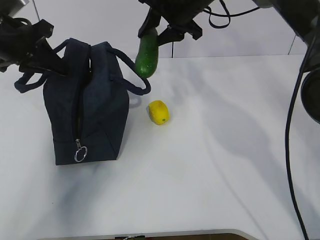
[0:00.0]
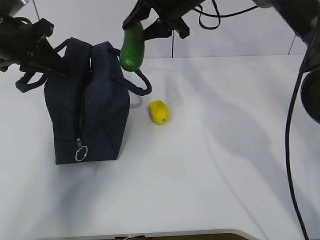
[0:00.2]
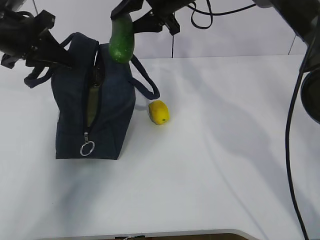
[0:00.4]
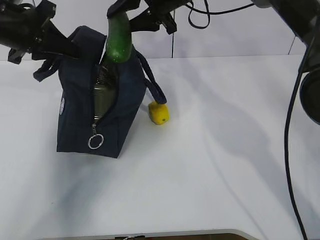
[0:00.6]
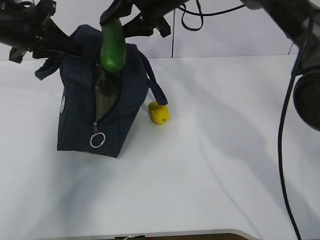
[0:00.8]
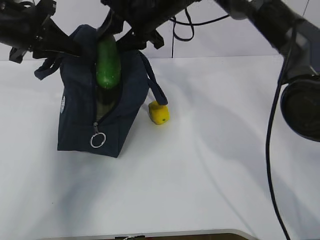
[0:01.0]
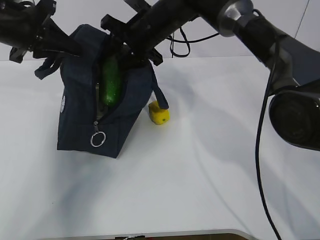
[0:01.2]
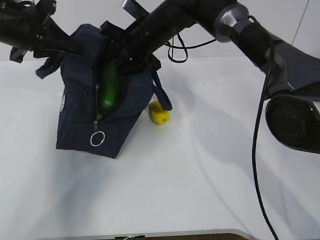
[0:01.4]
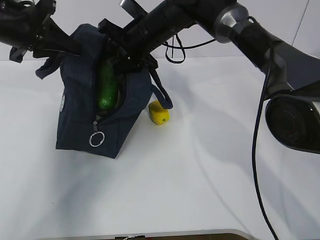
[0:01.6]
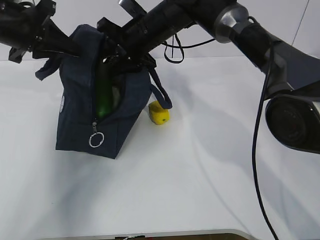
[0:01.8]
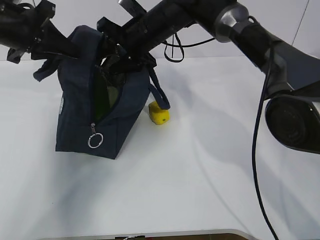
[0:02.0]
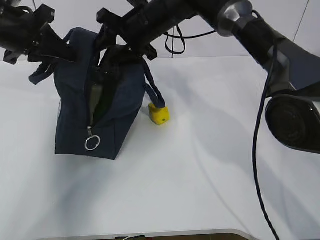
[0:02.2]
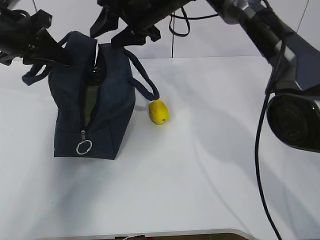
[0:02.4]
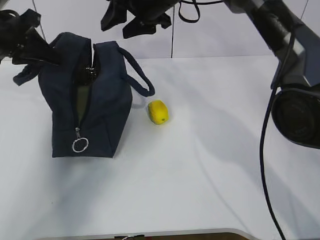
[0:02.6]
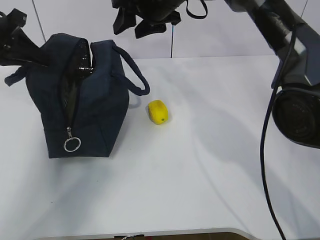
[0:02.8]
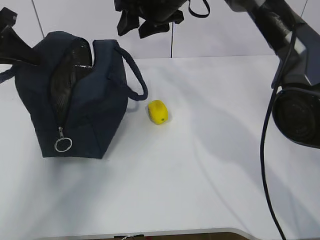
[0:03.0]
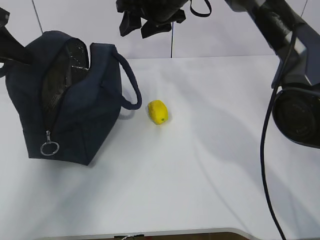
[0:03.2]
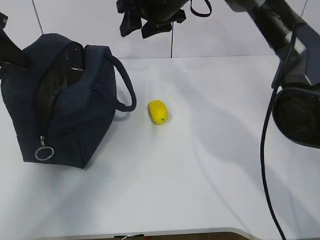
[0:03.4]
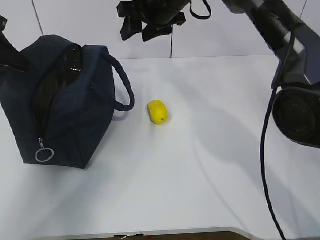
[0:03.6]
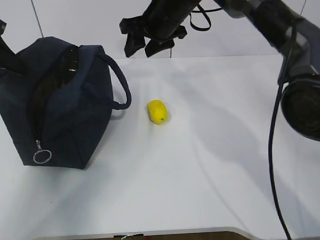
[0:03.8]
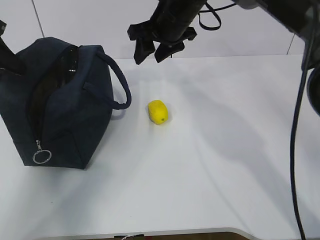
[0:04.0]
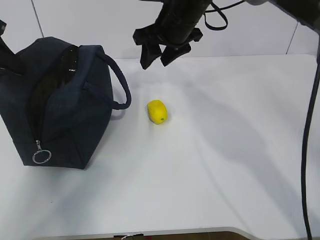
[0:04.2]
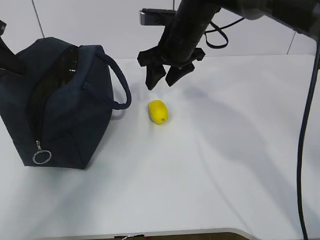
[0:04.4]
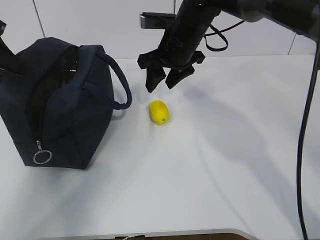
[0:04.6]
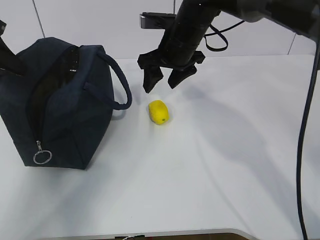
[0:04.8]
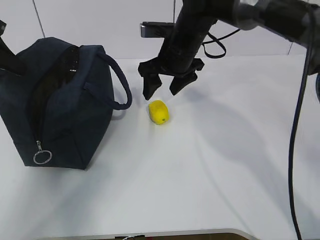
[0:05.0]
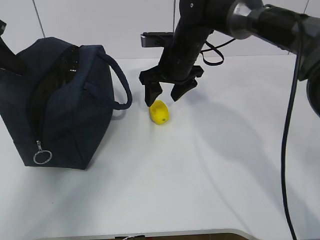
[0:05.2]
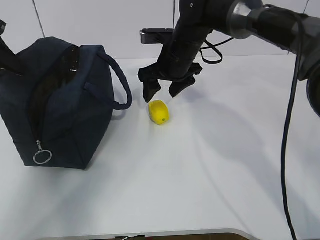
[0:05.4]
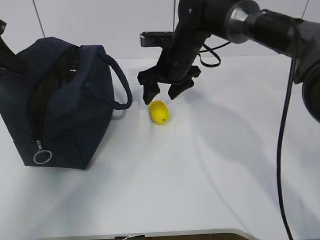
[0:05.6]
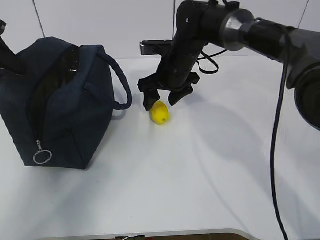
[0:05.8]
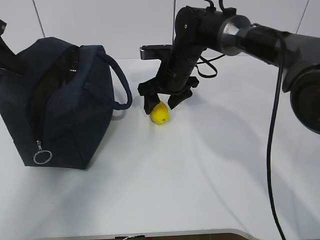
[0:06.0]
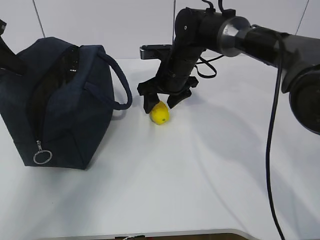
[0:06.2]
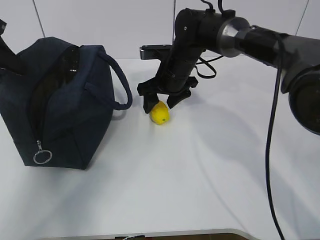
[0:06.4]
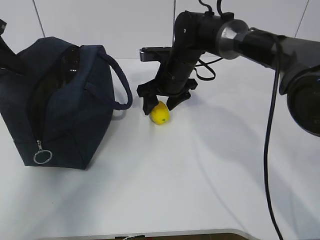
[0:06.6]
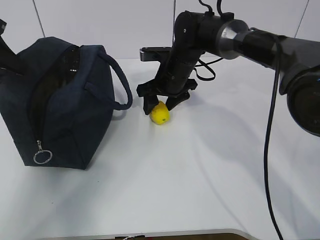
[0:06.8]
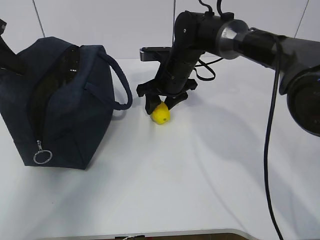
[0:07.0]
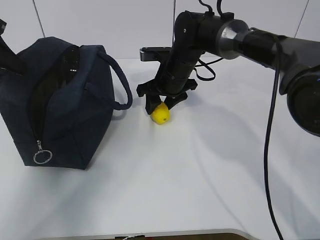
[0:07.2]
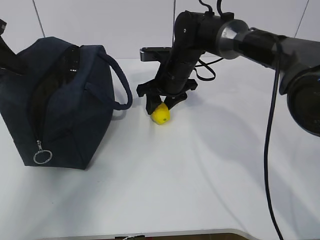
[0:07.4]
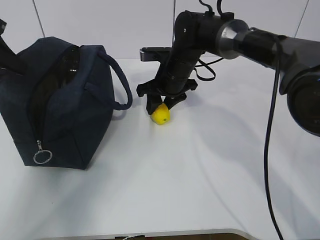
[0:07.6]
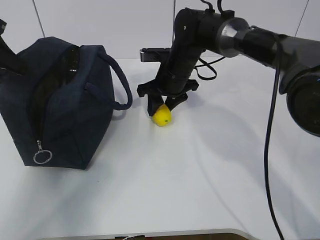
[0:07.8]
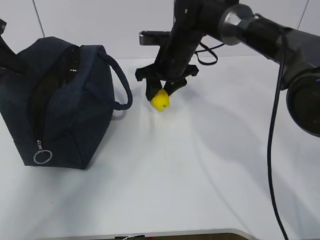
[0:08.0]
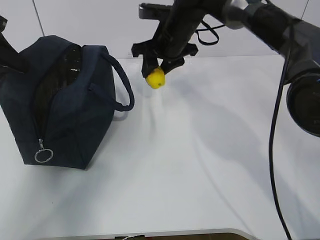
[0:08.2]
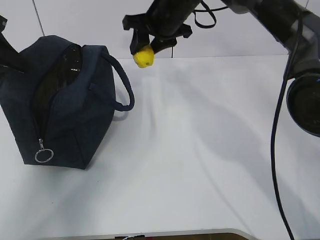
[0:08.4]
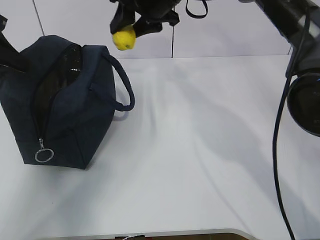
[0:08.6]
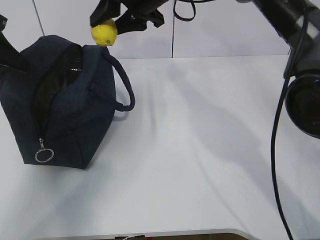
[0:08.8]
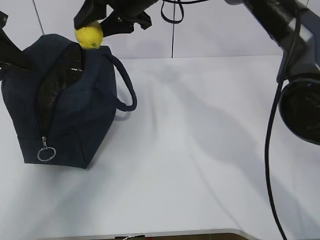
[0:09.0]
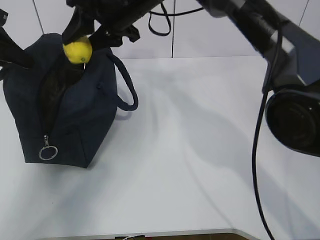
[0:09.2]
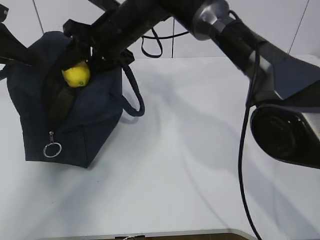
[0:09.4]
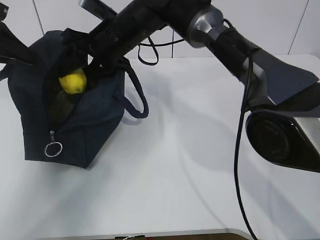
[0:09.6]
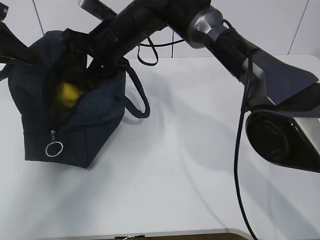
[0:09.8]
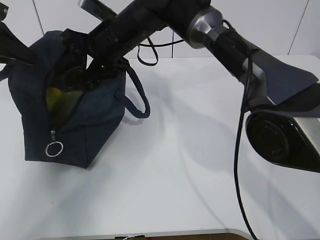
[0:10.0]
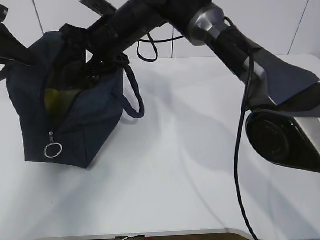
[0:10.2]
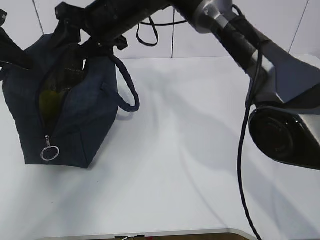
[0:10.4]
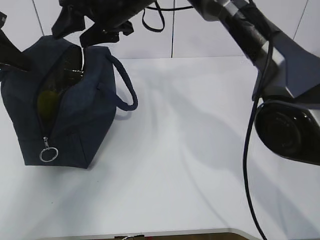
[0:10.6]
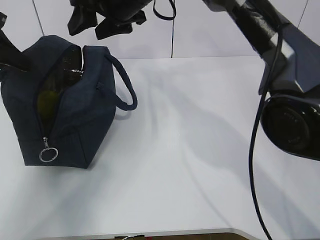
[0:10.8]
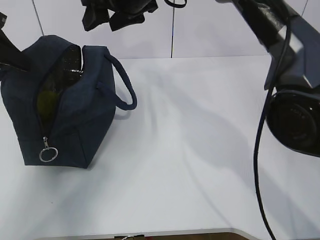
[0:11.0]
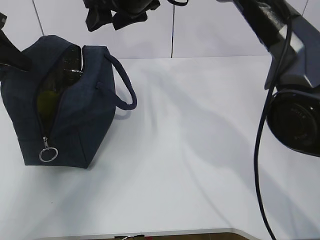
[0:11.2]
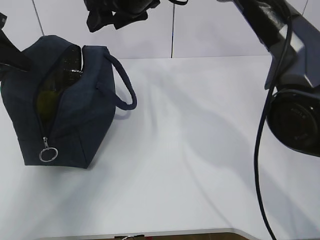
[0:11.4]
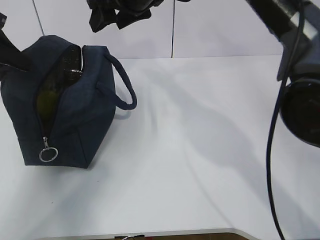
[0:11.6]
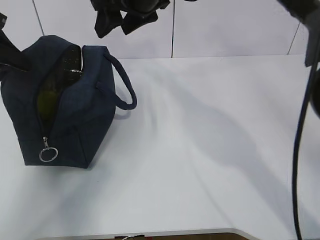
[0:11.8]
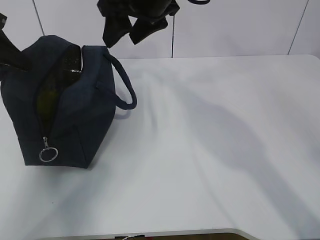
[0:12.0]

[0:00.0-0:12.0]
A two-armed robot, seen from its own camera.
Step, 0:00.0 to 0:02.2: Grab the lemon with your right hand.
Step, 0:02.4 to 0:04.2: Secure the lunch bag with your left hand.
Step, 0:04.4 to 0:08.0: Grab the lunch bag with your right hand.
0:00.0 to 0:01.6: The right gripper is displaced to the left and downward by about 10 cm.
0:01.6 to 0:03.0: The right gripper shifts roughly 5 cm upward. Meanwhile the left gripper heads to the left, covering roughly 5 cm.
0:03.0 to 0:04.4: The right gripper is displaced downward by approximately 5 cm.
0:04.4 to 0:06.0: The right gripper heads downward, covering some 10 cm.
0:06.0 to 0:07.6: Neither gripper changes place.
0:07.6 to 0:09.0: The right gripper shifts some 15 cm upward.
0:09.0 to 0:10.4: The right gripper shifts by some 5 cm.
0:10.4 to 0:12.0: The right gripper heads upward and to the right, covering some 10 cm.

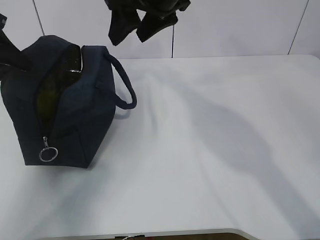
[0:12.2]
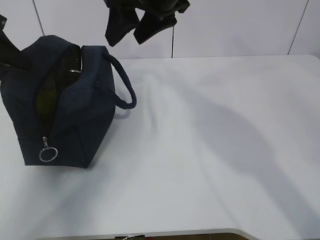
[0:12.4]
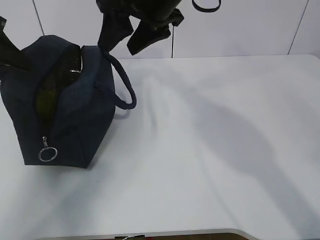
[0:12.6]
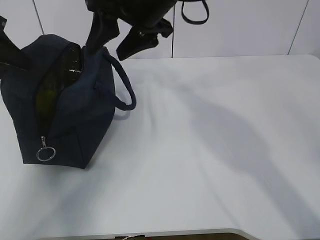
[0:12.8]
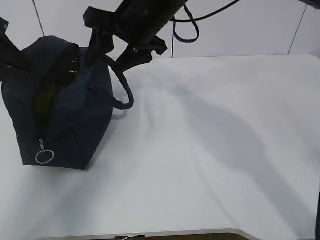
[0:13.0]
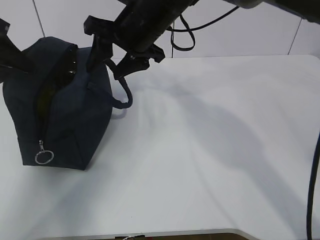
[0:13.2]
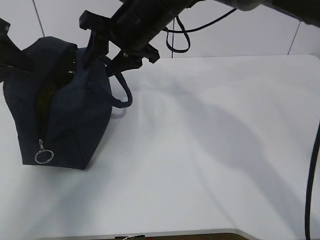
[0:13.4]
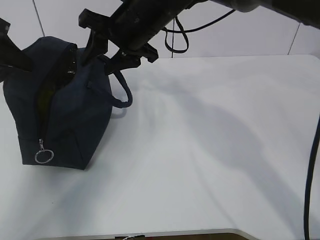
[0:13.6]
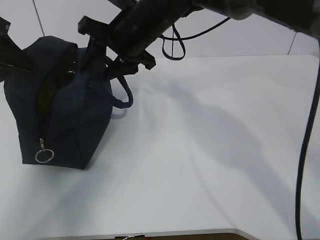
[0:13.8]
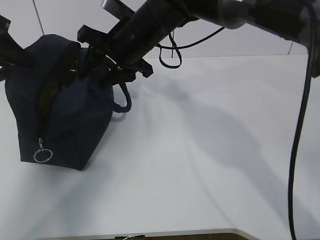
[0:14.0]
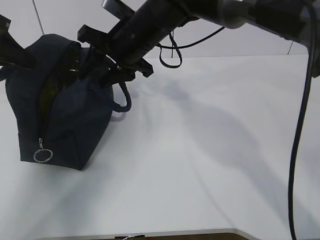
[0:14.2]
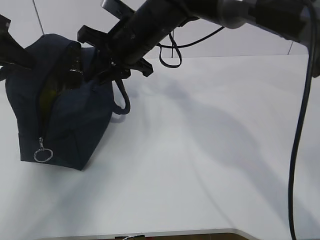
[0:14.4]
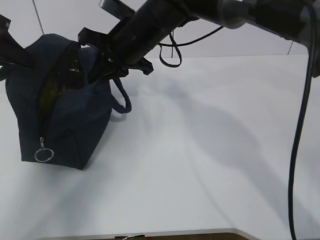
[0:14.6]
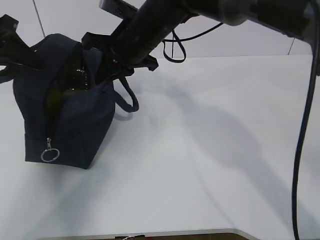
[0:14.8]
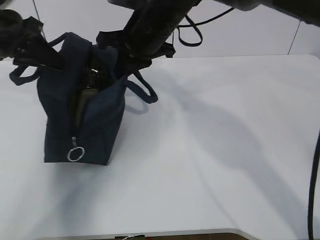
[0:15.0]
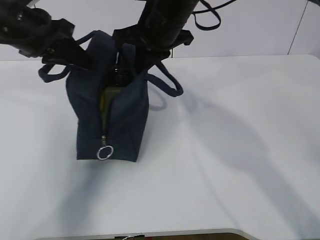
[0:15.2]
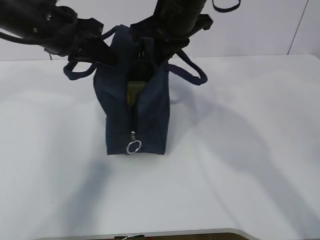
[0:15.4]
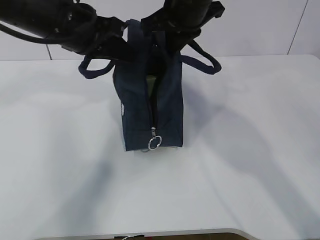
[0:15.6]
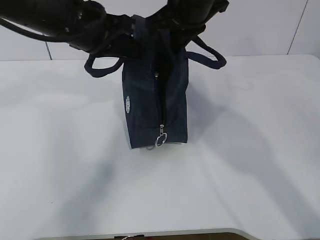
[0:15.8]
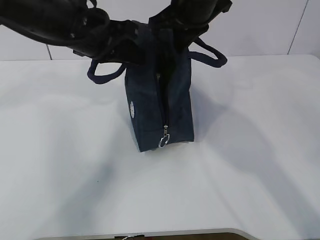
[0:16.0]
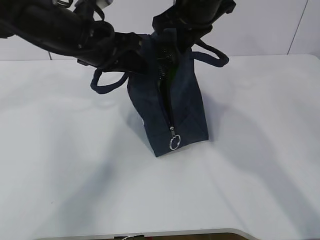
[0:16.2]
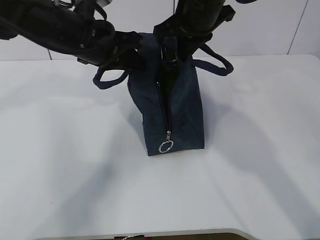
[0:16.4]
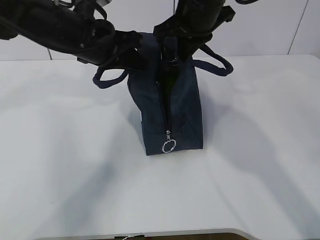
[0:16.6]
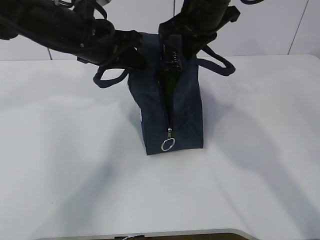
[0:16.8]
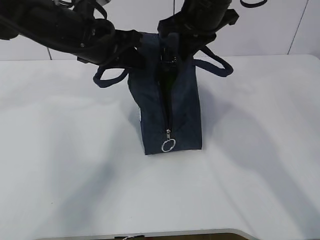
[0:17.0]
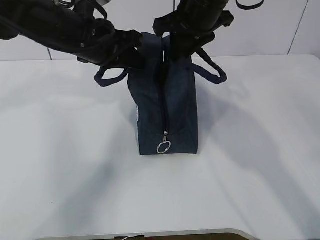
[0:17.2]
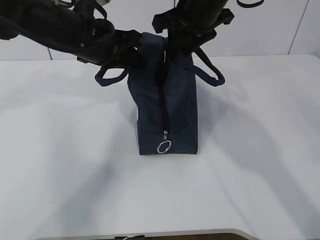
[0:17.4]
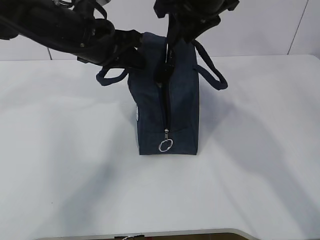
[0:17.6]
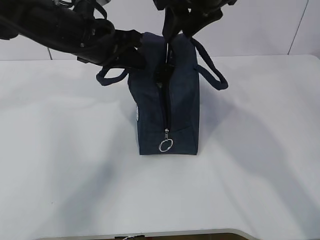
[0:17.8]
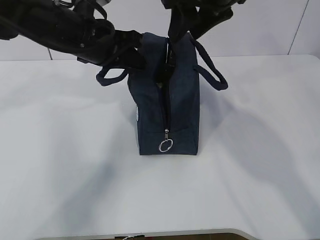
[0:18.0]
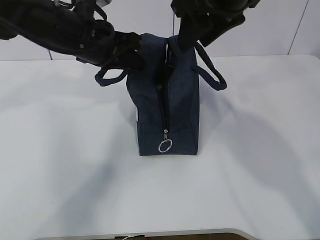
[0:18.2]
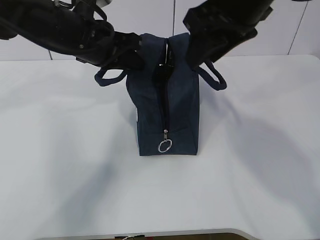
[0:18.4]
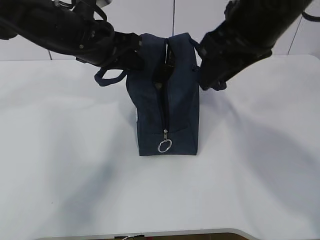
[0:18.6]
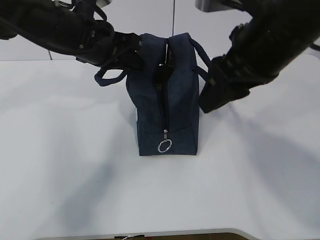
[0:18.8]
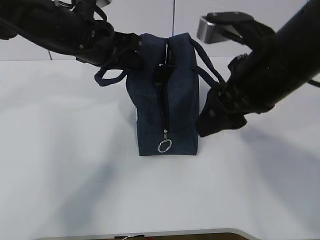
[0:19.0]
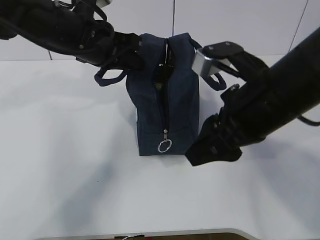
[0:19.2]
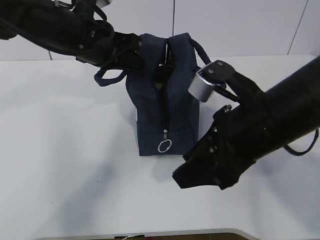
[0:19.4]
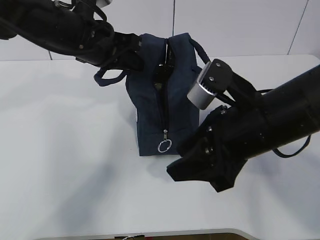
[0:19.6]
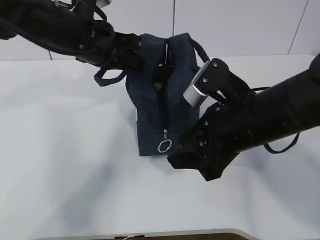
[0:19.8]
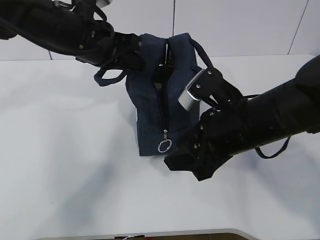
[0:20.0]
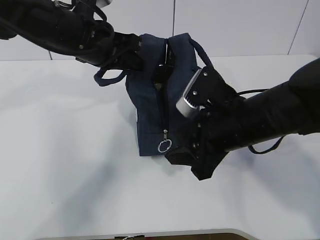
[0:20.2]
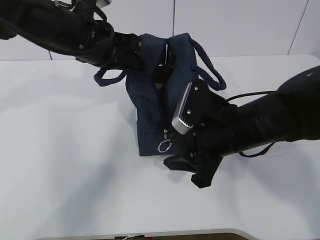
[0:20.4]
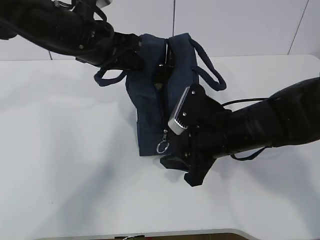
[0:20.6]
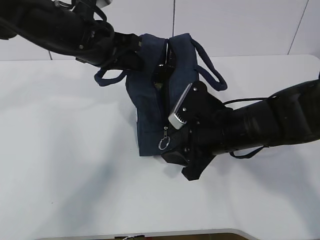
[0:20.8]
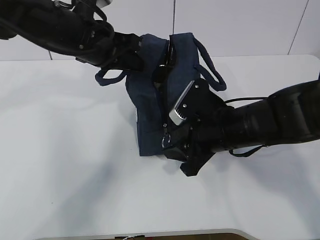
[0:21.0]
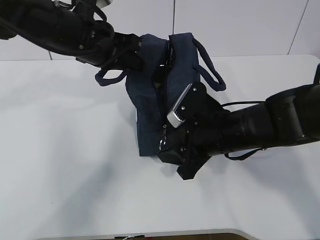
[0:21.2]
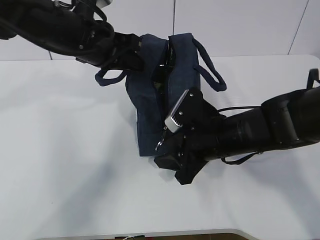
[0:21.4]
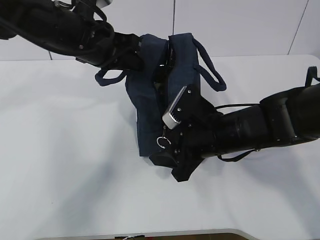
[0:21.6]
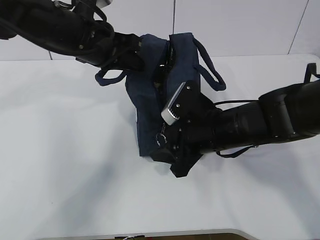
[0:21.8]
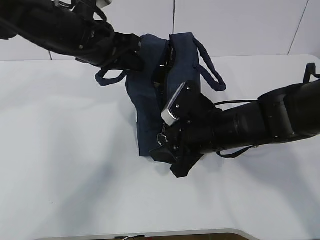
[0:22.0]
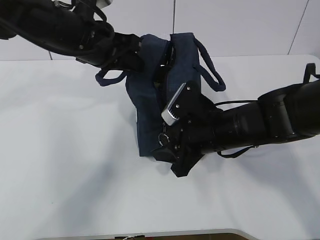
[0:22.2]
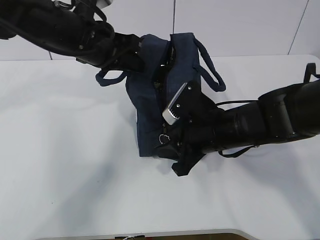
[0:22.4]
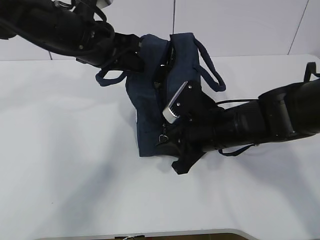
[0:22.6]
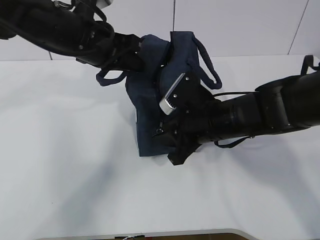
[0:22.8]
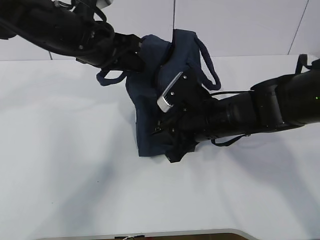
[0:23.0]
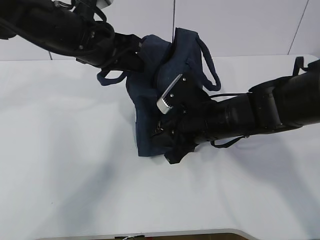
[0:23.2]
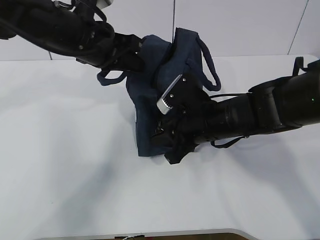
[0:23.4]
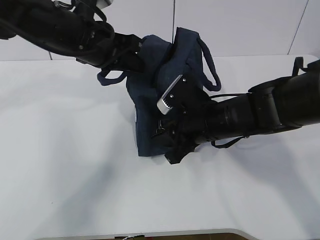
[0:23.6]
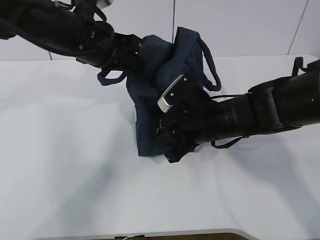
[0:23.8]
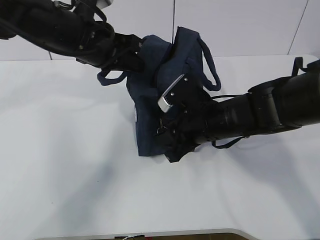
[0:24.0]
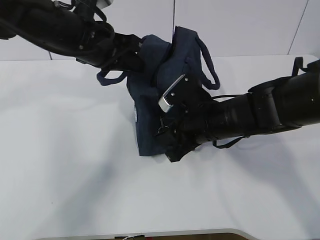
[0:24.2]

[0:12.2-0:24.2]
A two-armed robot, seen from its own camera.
0:12.2 to 0:13.8: The right gripper shifts approximately 5 cm downward.
0:13.8 to 0:15.2: The left gripper moves to the right, approximately 10 cm. The right gripper closes.
0:15.2 to 0:16.6: The left gripper is displaced to the right by roughly 10 cm. Meanwhile the right gripper changes place by about 5 cm.
0:16.6 to 0:18.2: The right gripper heads backward, covering about 5 cm, and opens up.
0:18.2 to 0:19.8: The right gripper travels downward and backward by roughly 20 cm.
0:19.8 to 0:21.2: The right gripper travels downward by some 5 cm.
0:21.2 to 0:24.2: The grippers stay close to where they were, moving slightly.
